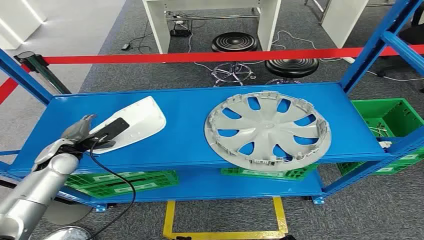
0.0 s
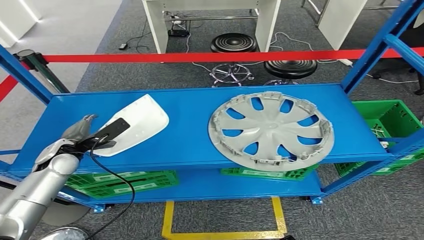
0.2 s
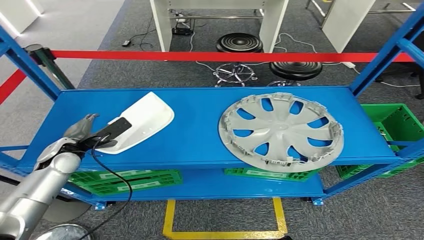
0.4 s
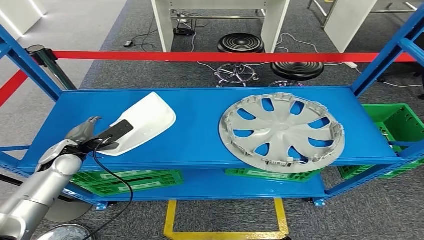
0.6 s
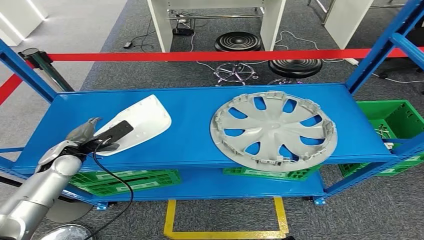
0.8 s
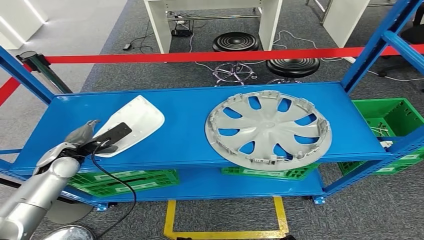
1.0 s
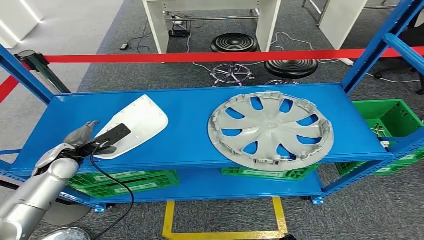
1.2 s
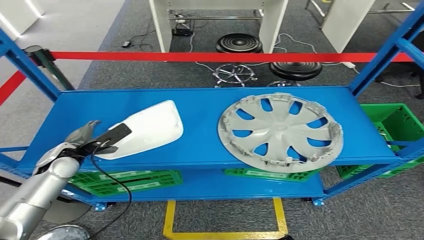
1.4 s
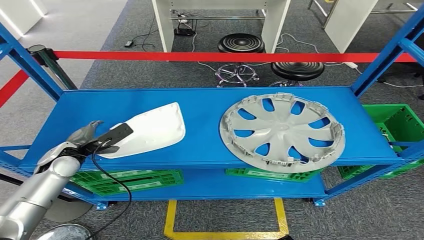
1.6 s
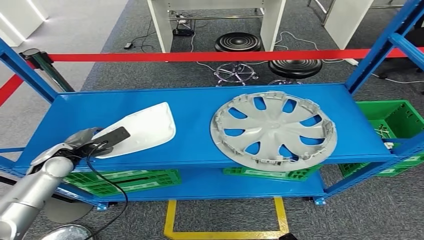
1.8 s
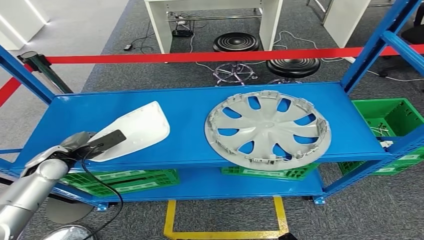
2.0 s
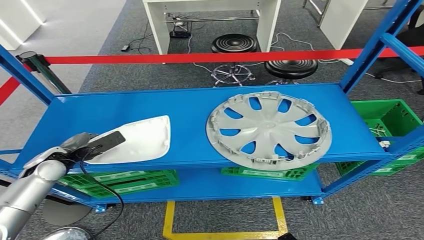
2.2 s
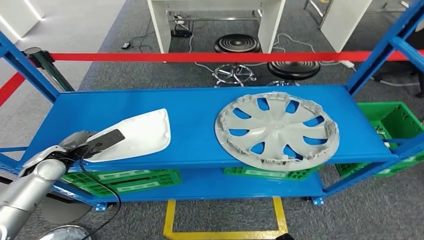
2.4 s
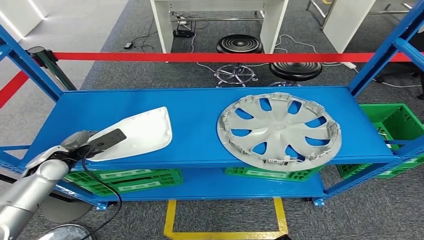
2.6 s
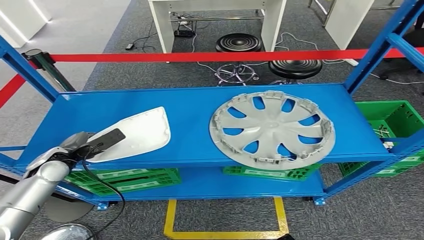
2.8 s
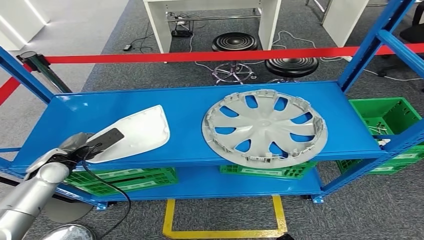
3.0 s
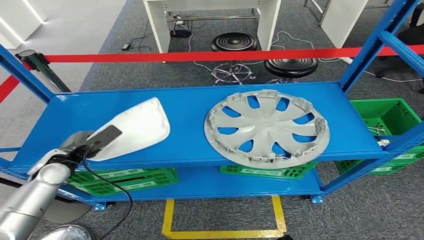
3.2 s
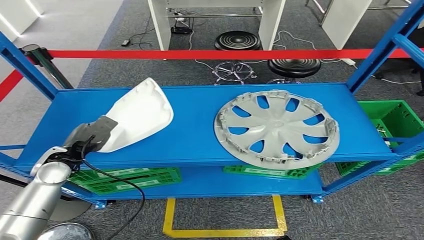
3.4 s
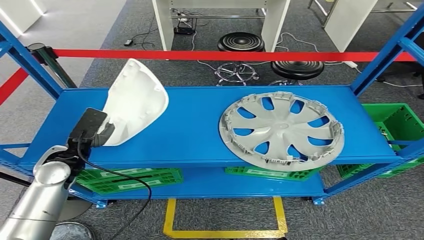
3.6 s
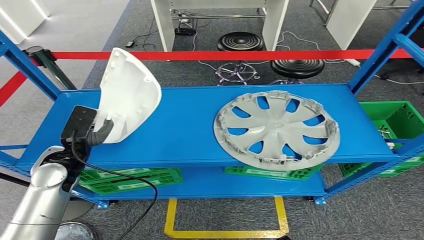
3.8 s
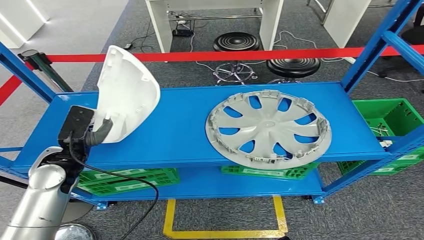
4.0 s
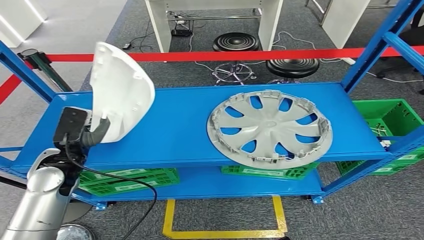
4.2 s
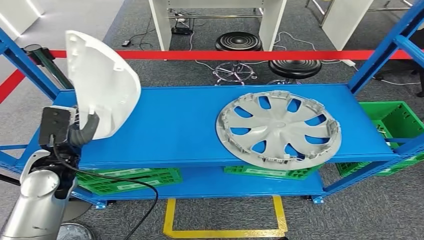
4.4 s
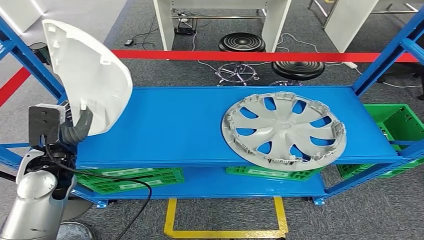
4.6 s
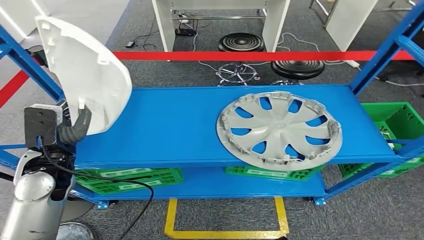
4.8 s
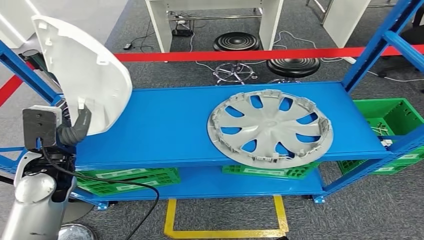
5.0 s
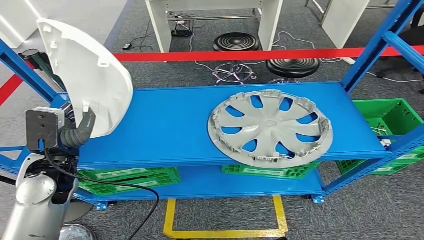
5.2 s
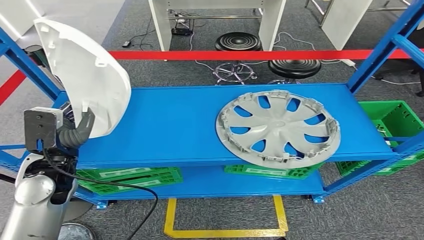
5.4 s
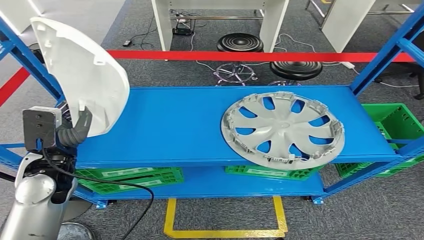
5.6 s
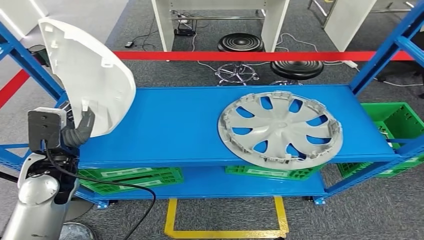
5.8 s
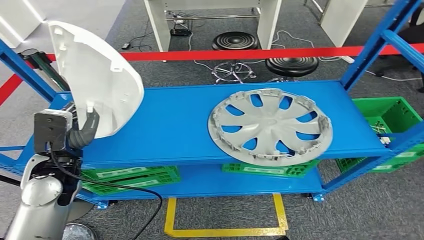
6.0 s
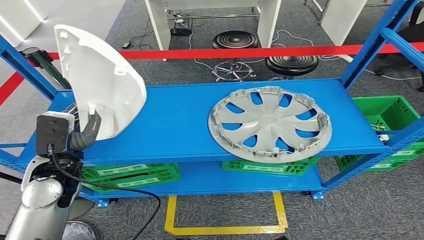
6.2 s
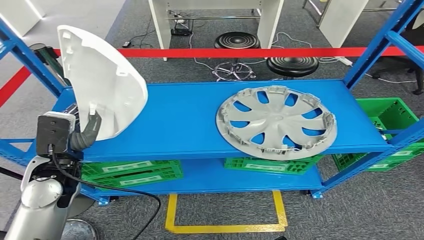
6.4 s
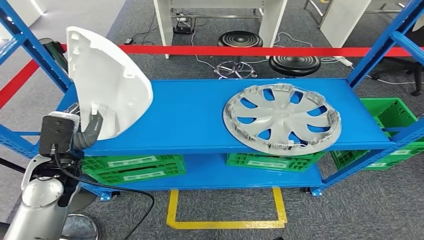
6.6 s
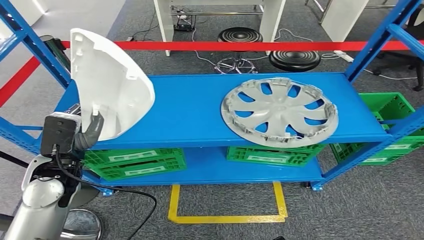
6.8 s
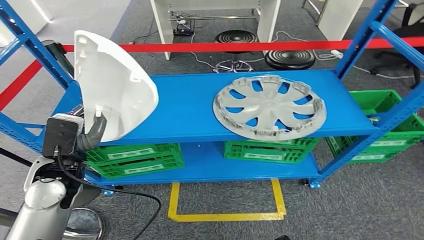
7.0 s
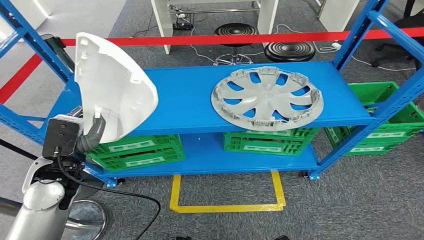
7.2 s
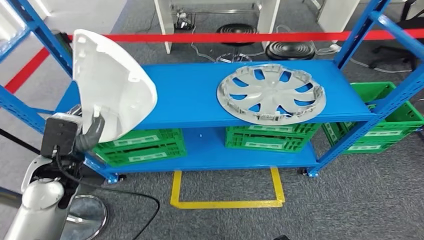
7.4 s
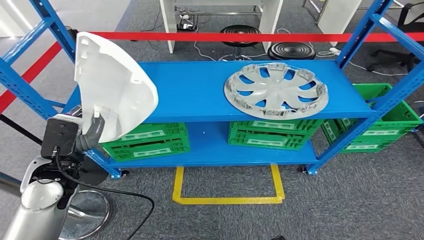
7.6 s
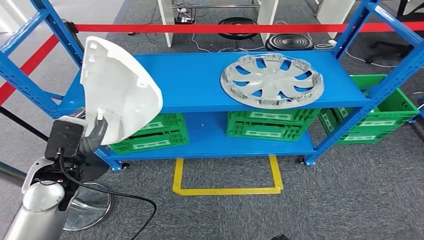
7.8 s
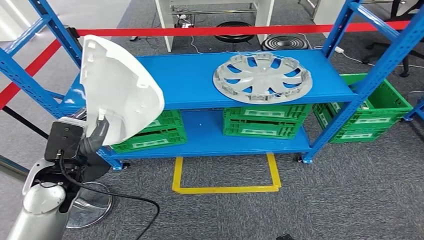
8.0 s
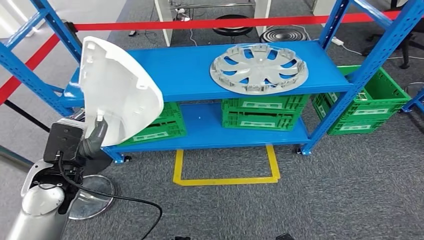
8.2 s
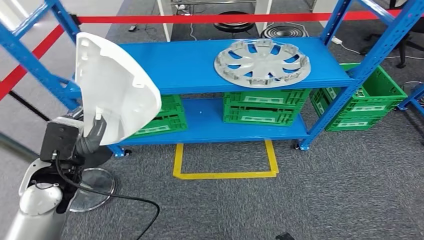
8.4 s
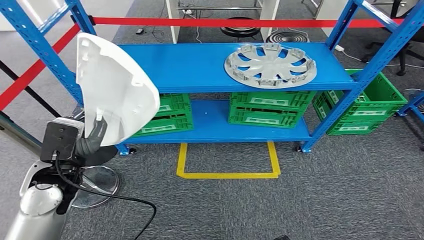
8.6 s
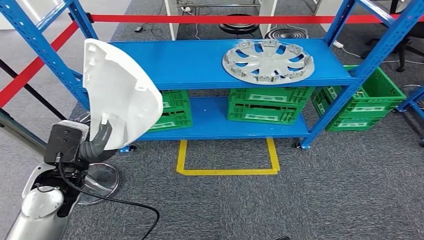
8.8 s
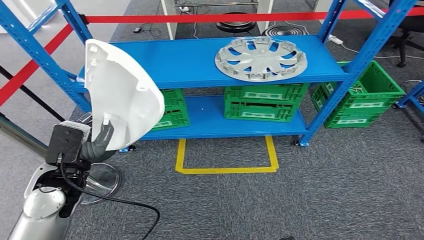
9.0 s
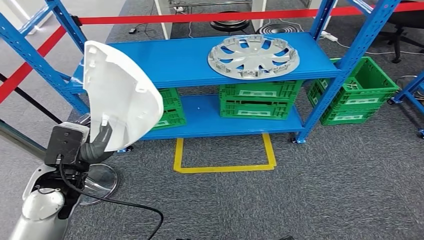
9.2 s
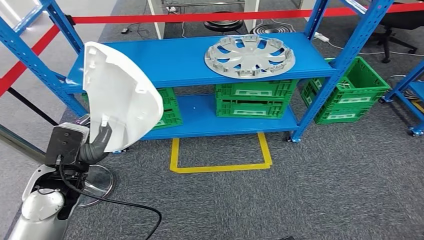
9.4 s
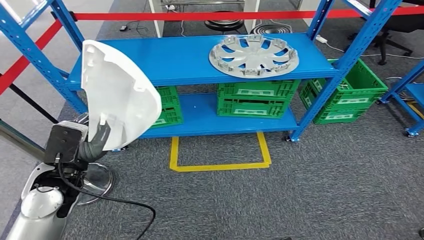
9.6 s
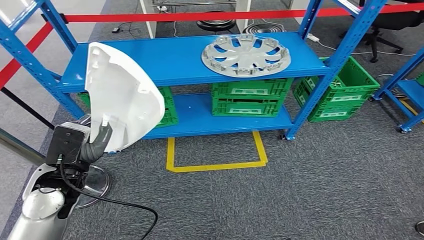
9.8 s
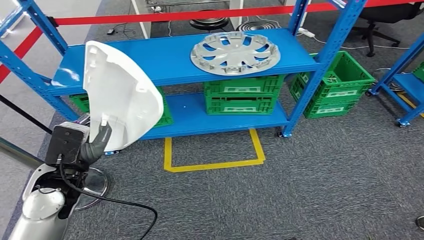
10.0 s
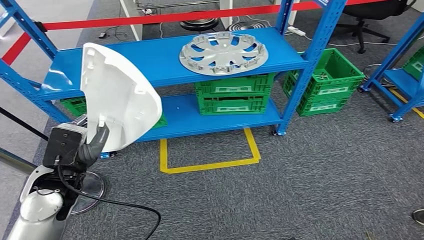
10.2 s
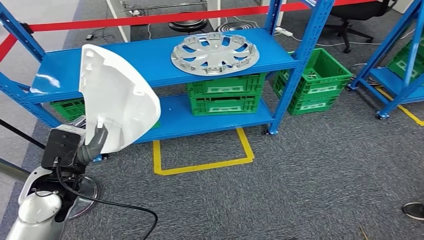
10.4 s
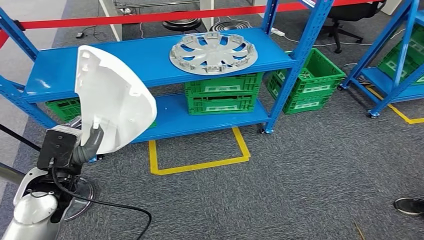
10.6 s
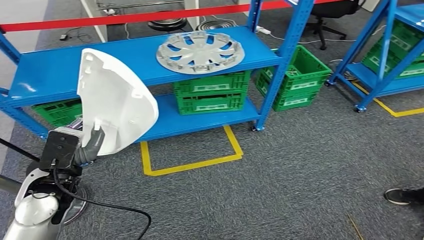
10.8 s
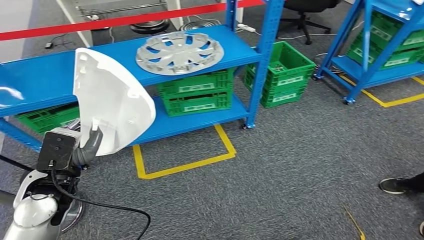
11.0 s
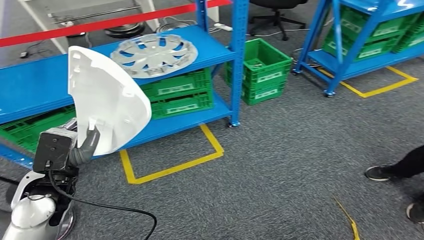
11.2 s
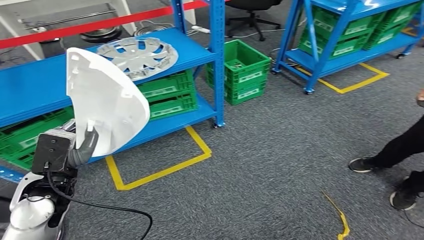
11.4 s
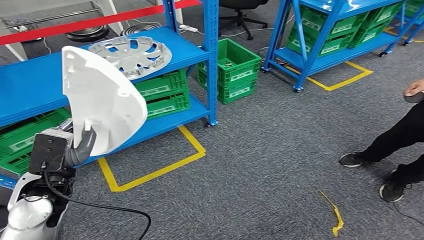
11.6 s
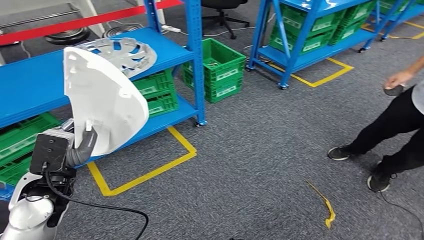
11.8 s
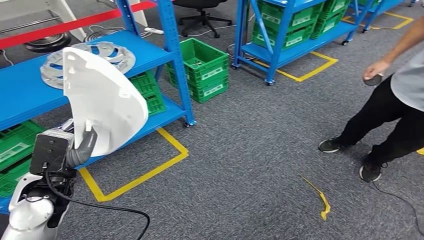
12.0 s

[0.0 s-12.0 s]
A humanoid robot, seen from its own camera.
Step, 0.0 to 4.8 s: Pick up the small component from the shelf.

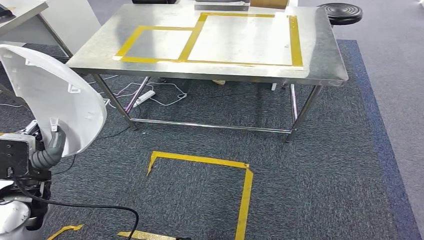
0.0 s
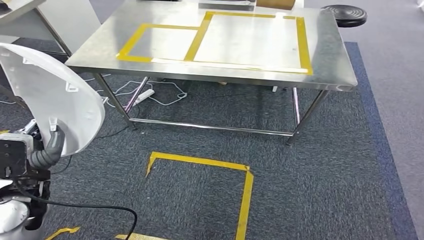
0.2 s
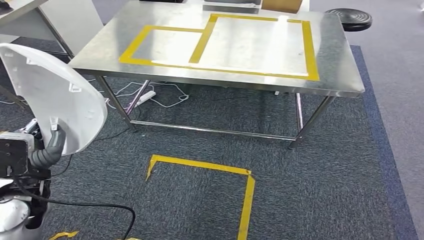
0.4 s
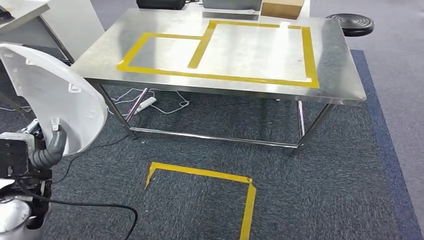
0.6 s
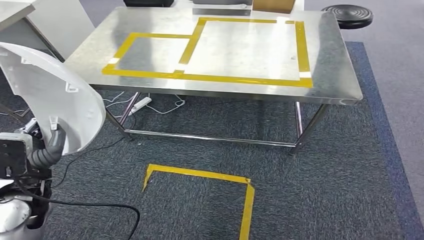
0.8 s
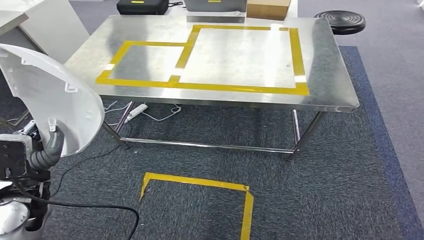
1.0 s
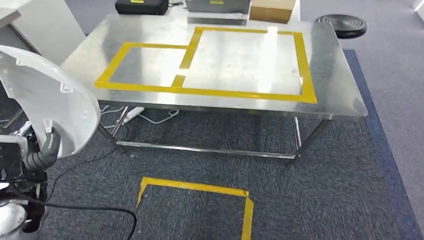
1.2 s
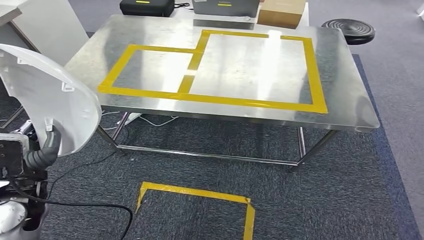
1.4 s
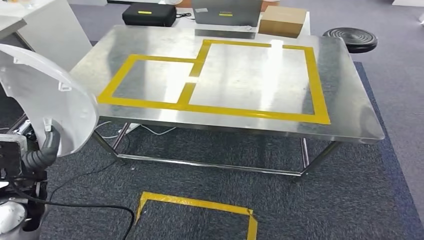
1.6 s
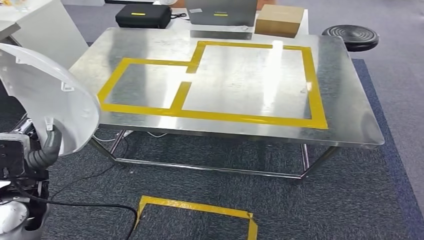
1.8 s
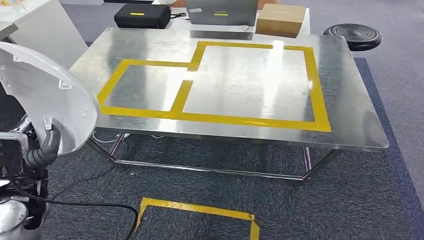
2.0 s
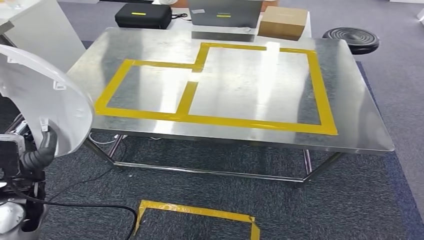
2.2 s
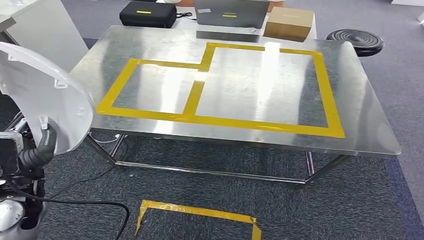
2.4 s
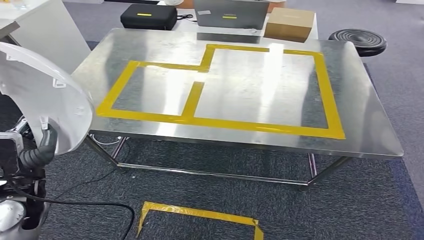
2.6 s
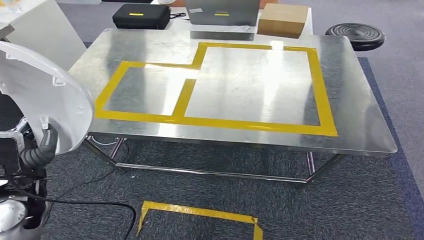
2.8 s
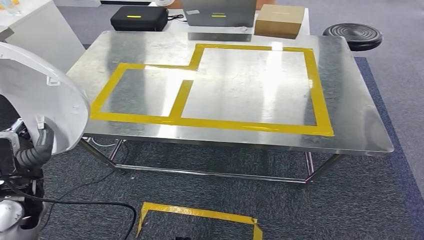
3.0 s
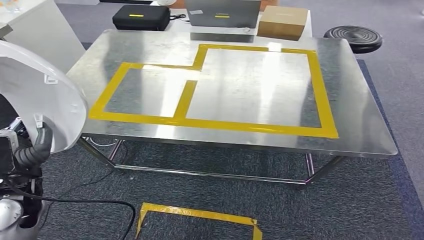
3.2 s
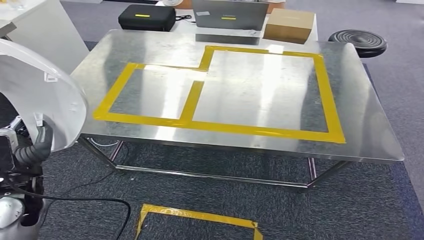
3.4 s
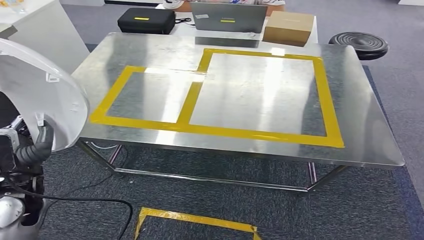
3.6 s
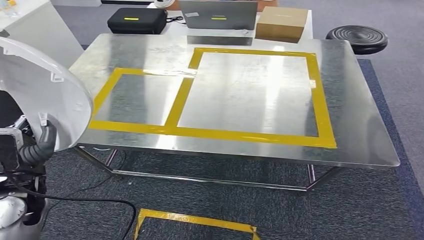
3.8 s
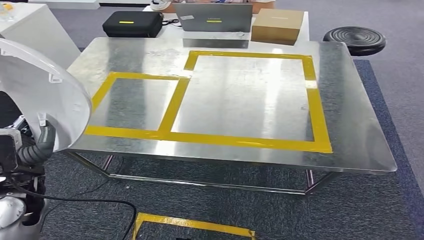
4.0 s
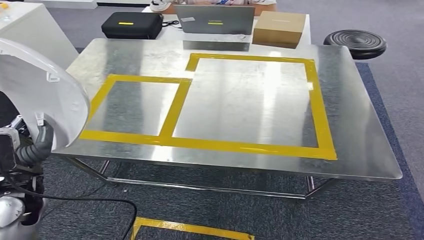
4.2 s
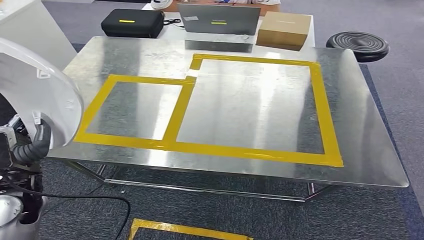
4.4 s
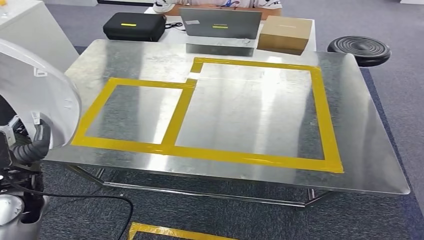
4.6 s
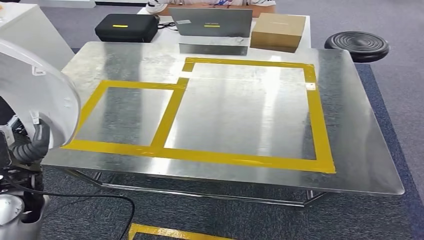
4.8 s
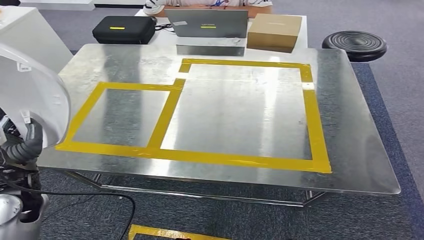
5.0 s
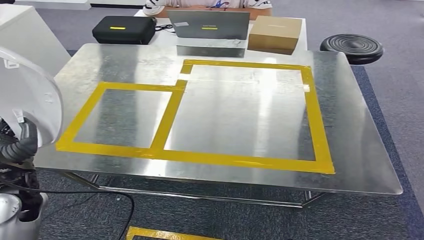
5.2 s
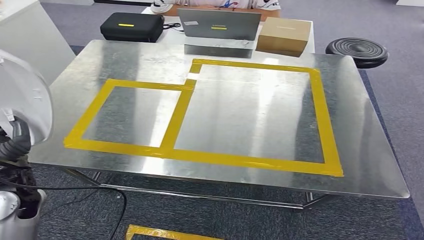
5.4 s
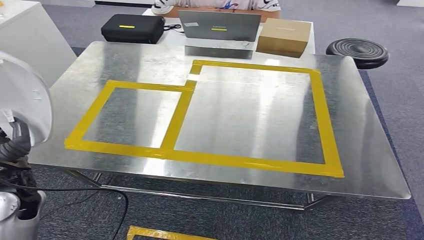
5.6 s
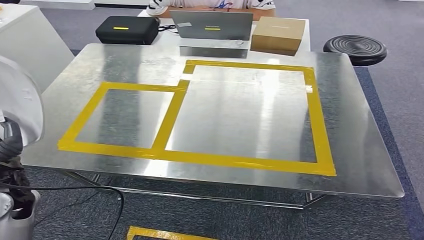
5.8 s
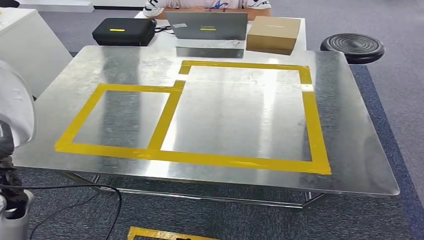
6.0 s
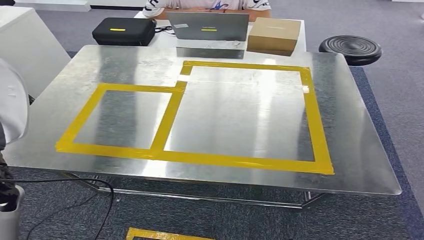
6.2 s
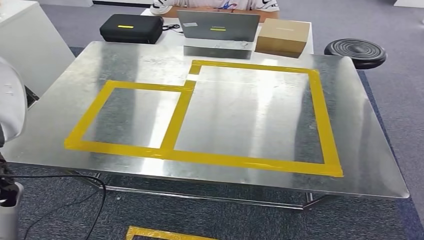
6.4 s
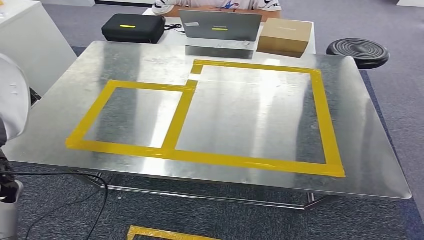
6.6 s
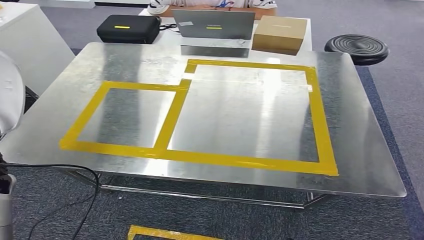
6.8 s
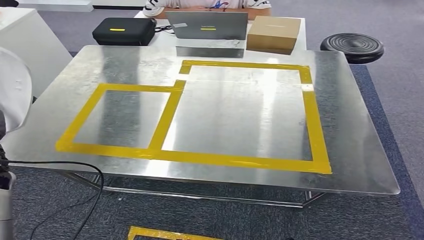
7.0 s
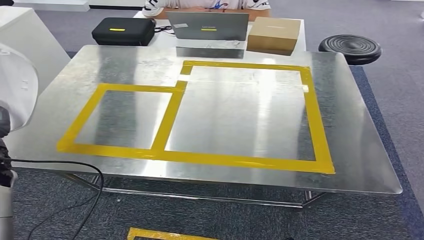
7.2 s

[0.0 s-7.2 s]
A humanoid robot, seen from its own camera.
5.8 to 7.2 s: The left hand moves to the left, about 10 cm.
